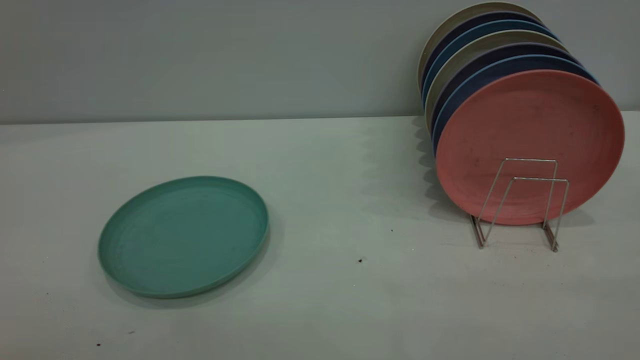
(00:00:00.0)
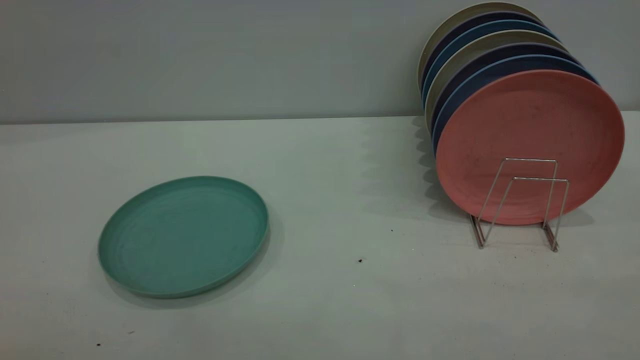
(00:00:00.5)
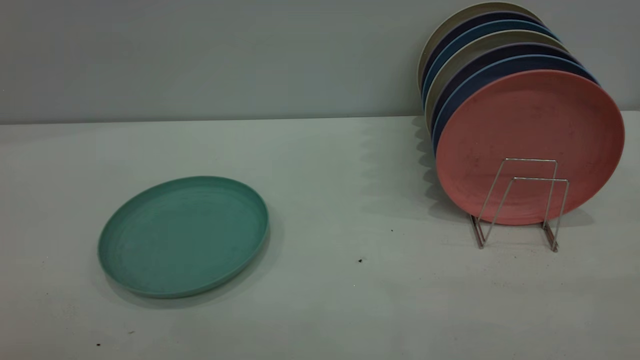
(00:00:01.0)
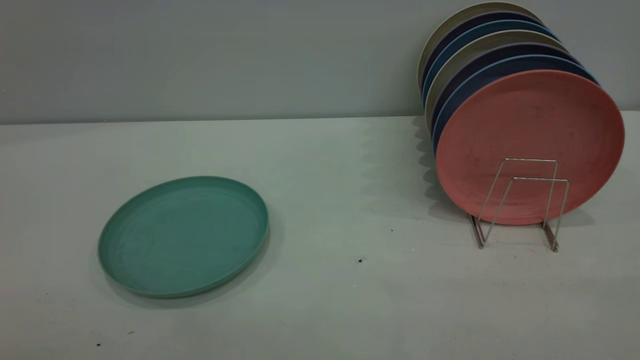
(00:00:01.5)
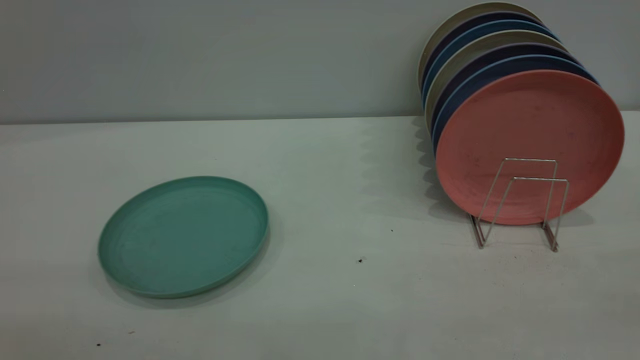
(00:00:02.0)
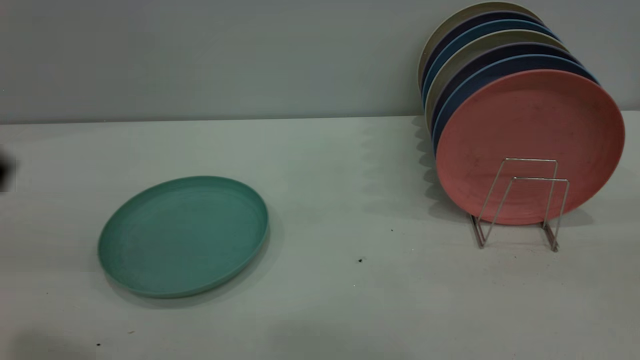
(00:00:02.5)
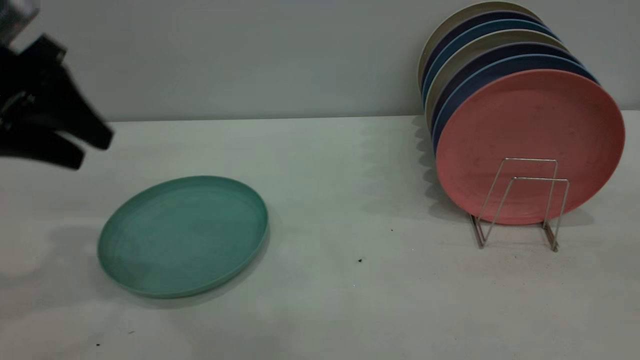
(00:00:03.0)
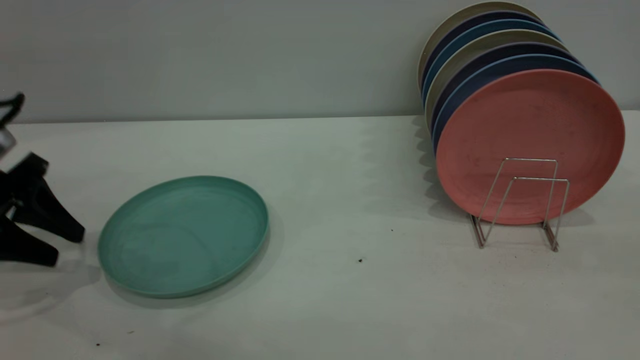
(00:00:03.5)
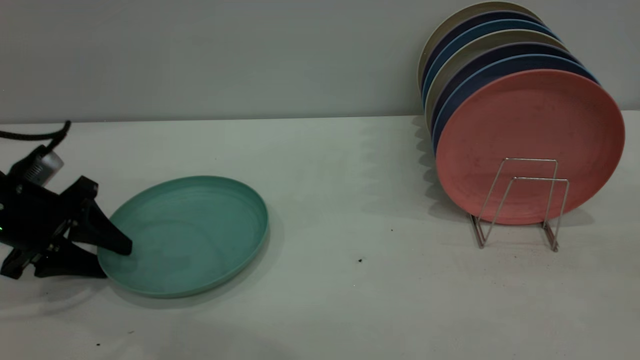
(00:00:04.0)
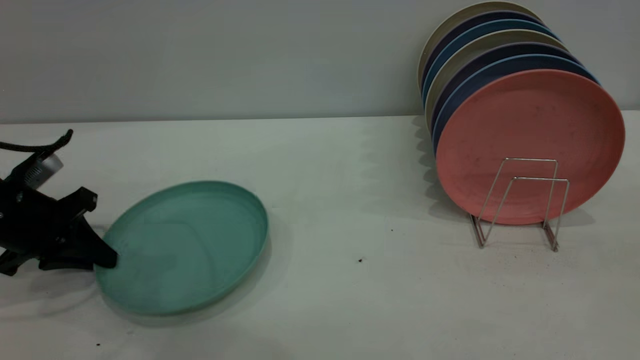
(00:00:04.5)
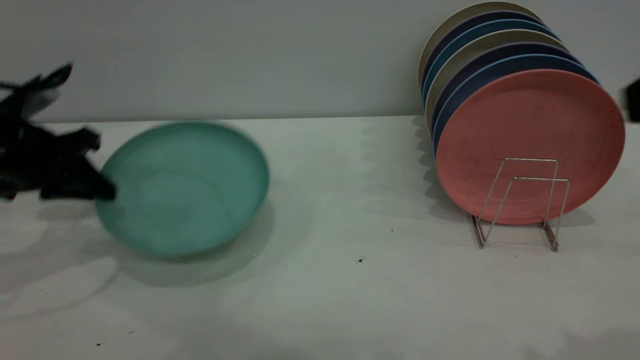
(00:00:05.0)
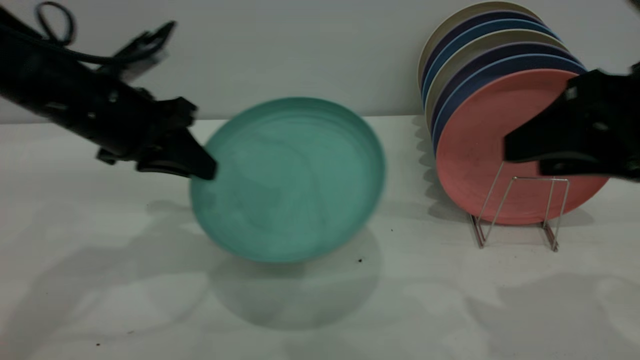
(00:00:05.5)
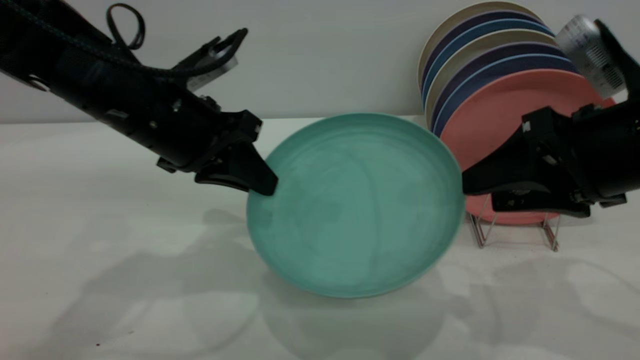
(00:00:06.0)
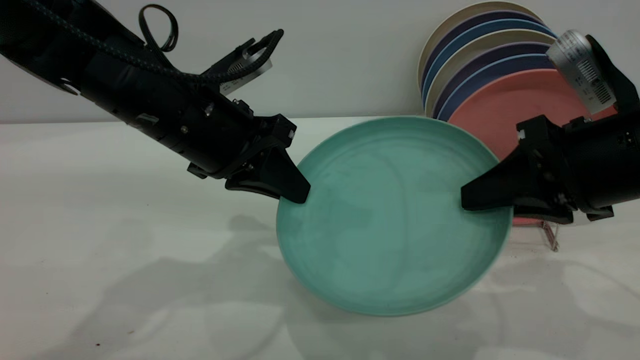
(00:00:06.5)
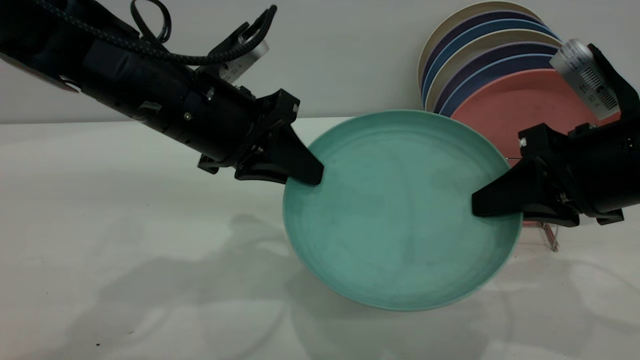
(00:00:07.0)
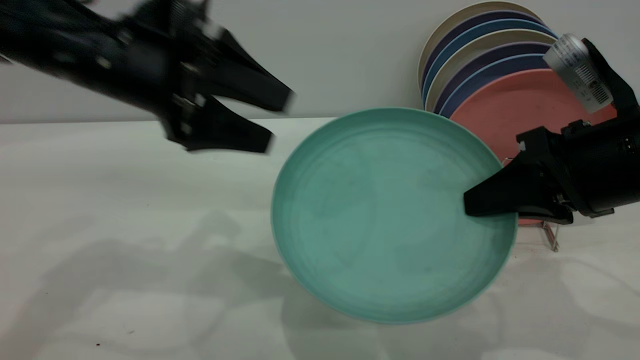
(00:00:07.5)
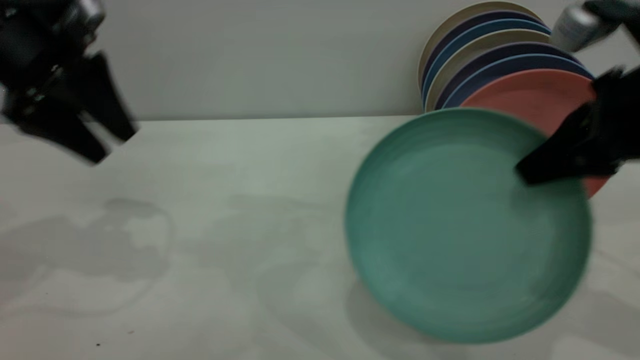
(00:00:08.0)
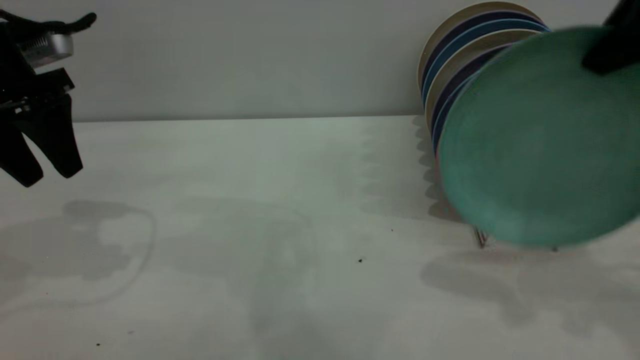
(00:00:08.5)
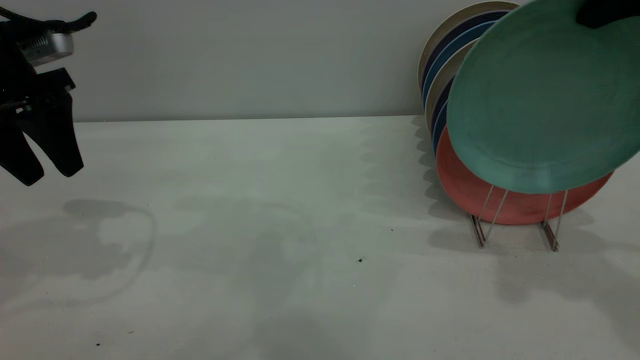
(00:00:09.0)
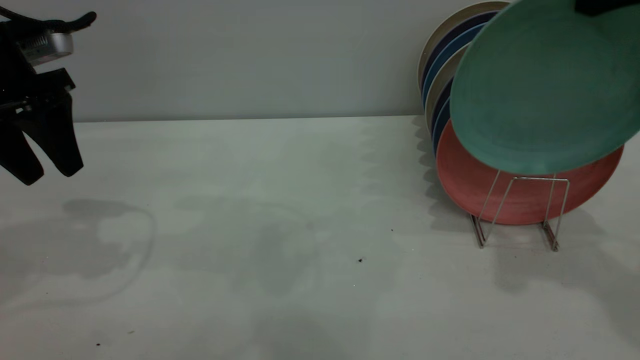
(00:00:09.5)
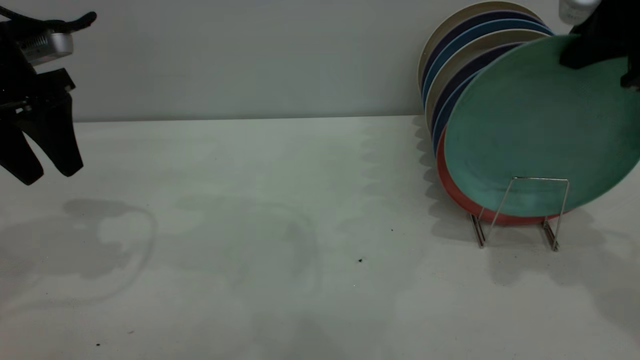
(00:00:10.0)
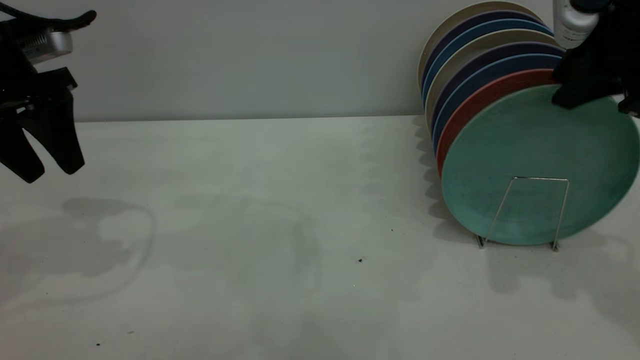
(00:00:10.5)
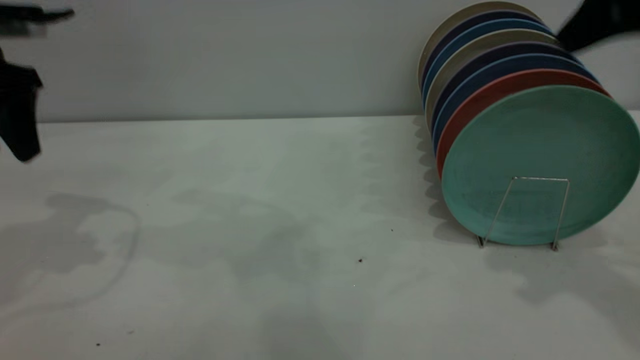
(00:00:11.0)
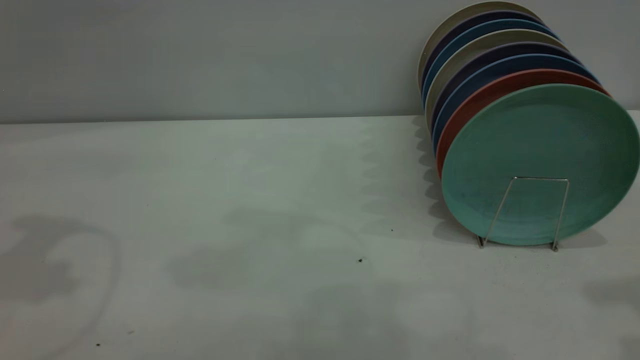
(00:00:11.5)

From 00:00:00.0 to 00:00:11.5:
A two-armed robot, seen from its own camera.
Task of the whole recording: the left gripper grasp the green plate, the left gripper pass the green plate to the right gripper, and the right gripper place the green plate on the plate rack.
Step, from 00:00:00.0 to 00:00:04.5: Pick up the plate with the left gripper.
Step, from 00:00:05.0 to 00:00:07.5: Pass the plate from the left gripper to the right gripper.
Step, from 00:00:08.0 to 00:00:11.0: Place the plate on the shelf.
From 00:00:02.0 to 00:00:04.0: The left gripper is displaced forward and downward by some 40 cm.
From 00:00:04.0 to 00:00:06.0: The left gripper moves to the right and upward, about 20 cm, and closes up; the right gripper heads forward and downward, covering approximately 25 cm.
From 00:00:06.0 to 00:00:07.5: The left gripper changes place by approximately 5 cm, and opens its fingers. Meanwhile the right gripper closes its fingers.
From 00:00:07.5 to 00:00:09.5: The right gripper goes some 15 cm upward and forward. The left gripper moves to the left, roughly 15 cm.
From 00:00:09.5 to 00:00:11.5: The left gripper travels upward and backward by some 15 cm, while the right gripper travels backward by roughly 10 cm, and opens its fingers.
